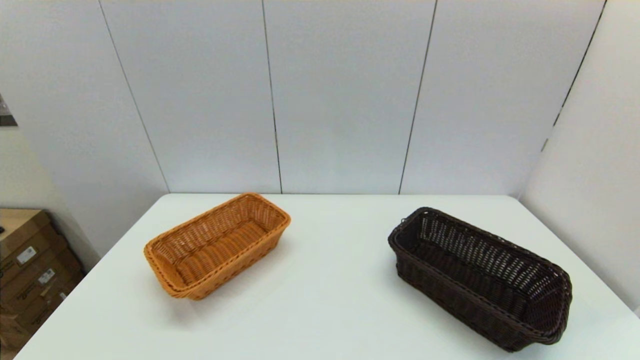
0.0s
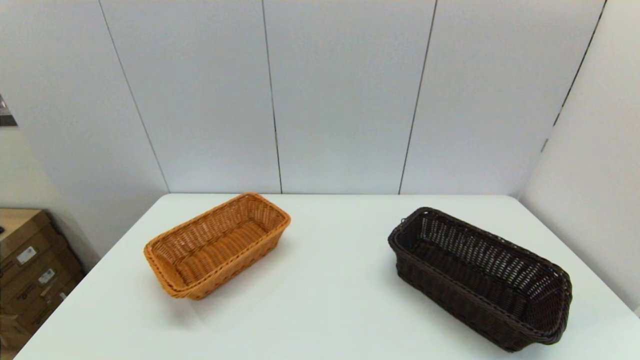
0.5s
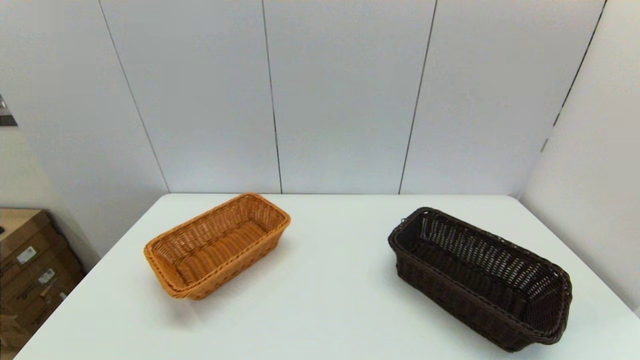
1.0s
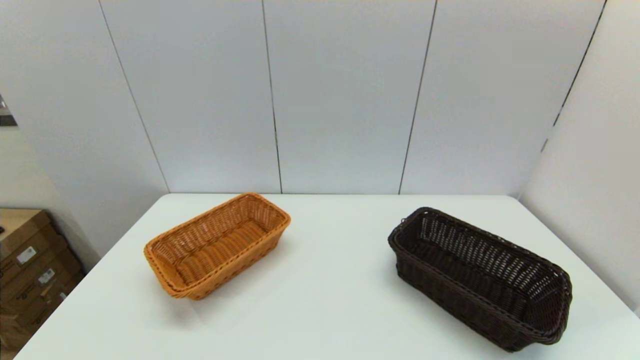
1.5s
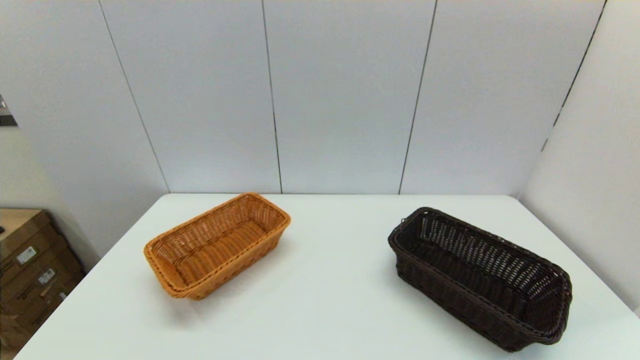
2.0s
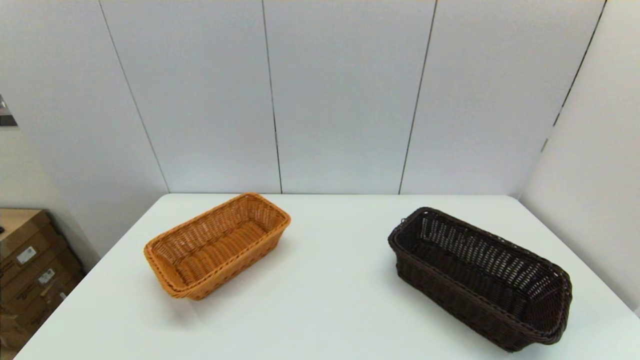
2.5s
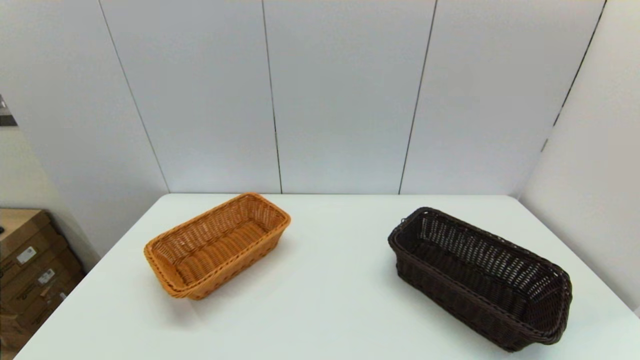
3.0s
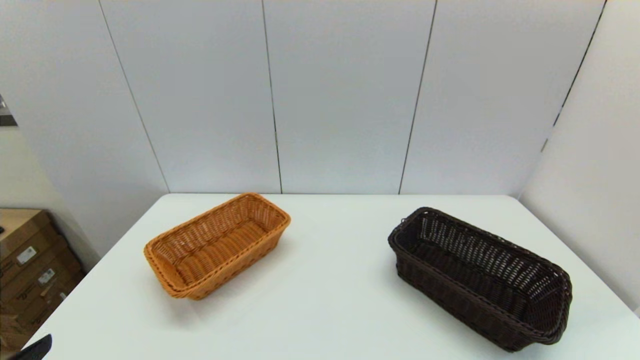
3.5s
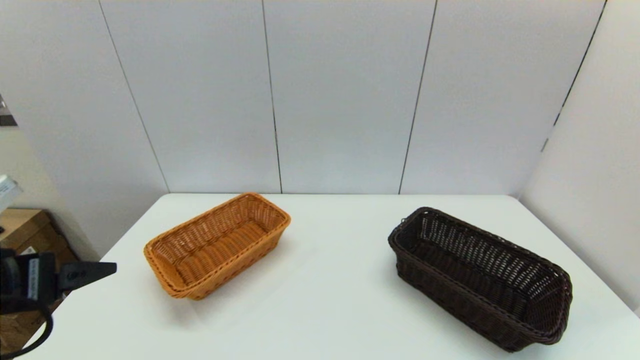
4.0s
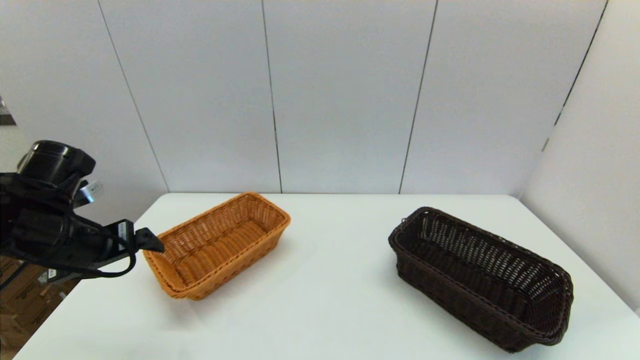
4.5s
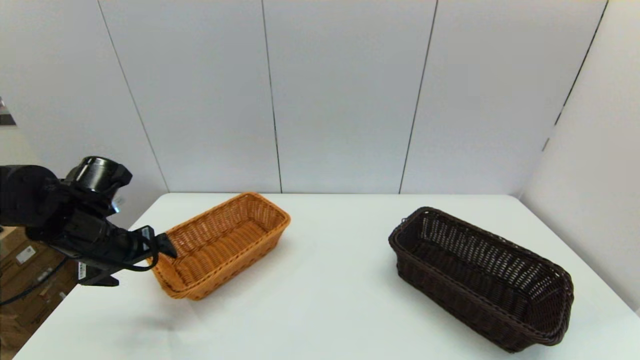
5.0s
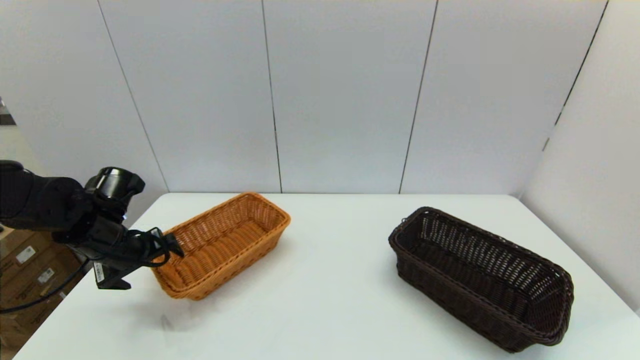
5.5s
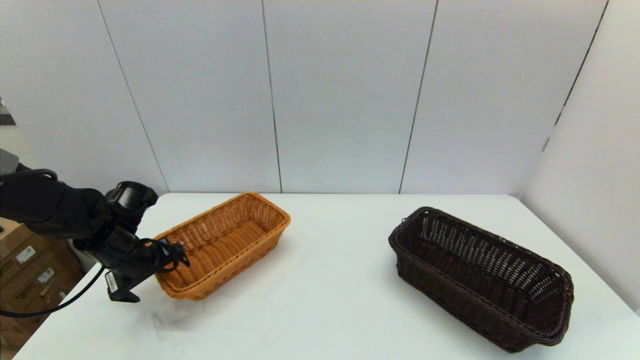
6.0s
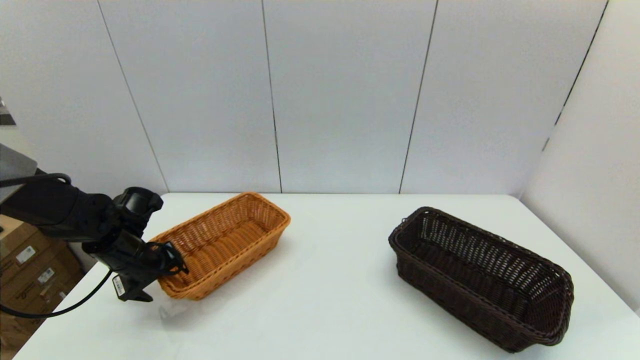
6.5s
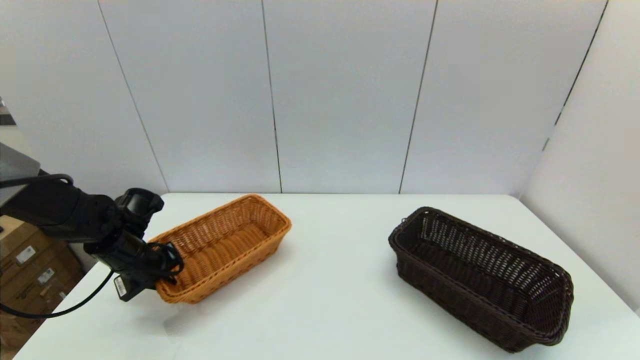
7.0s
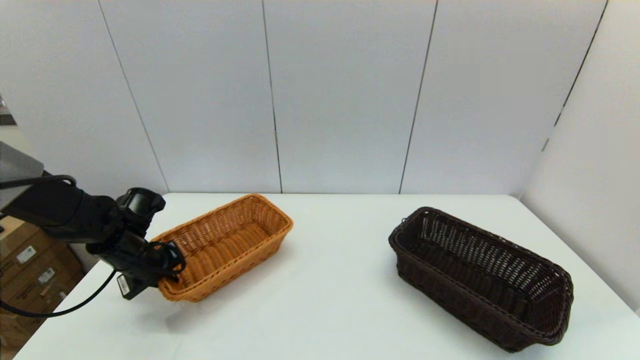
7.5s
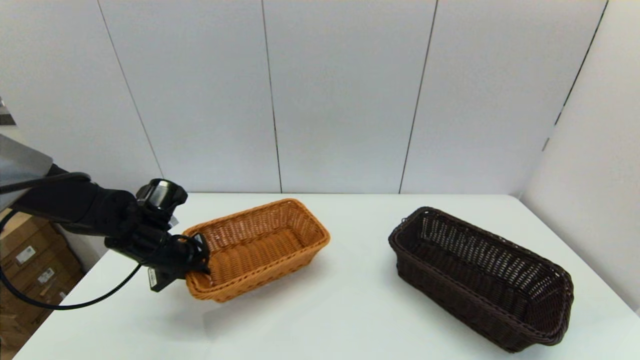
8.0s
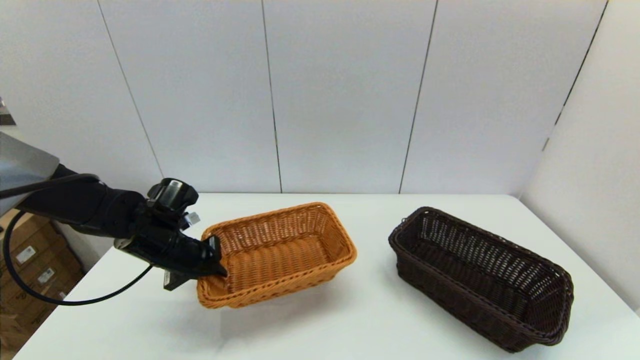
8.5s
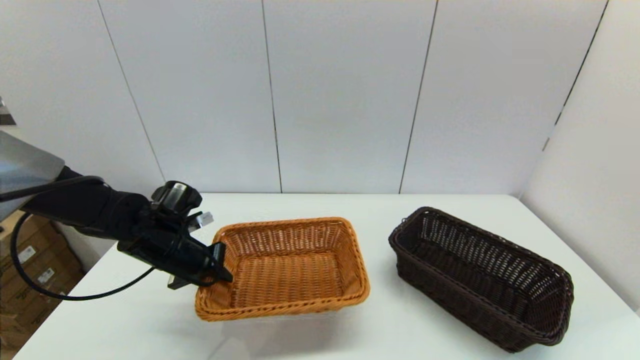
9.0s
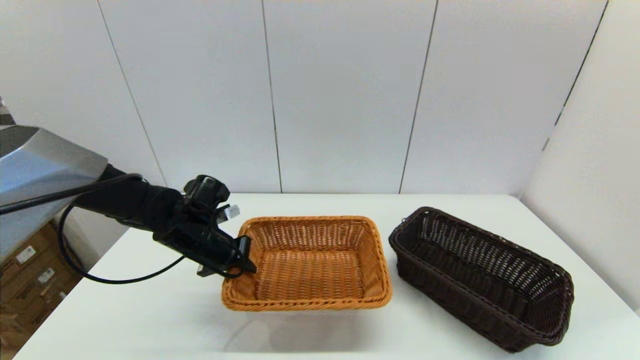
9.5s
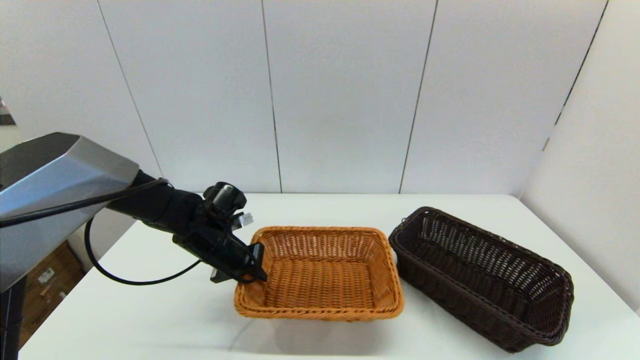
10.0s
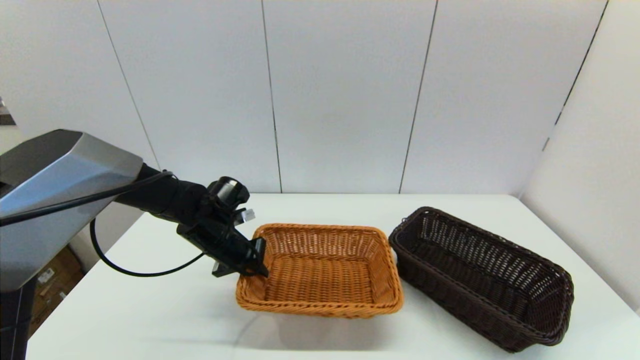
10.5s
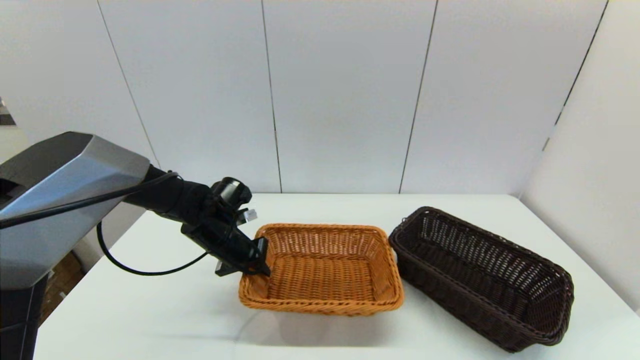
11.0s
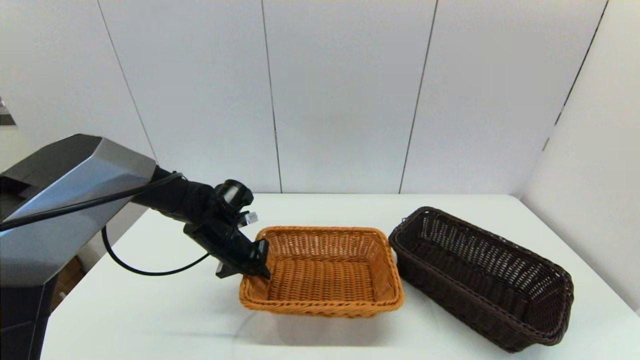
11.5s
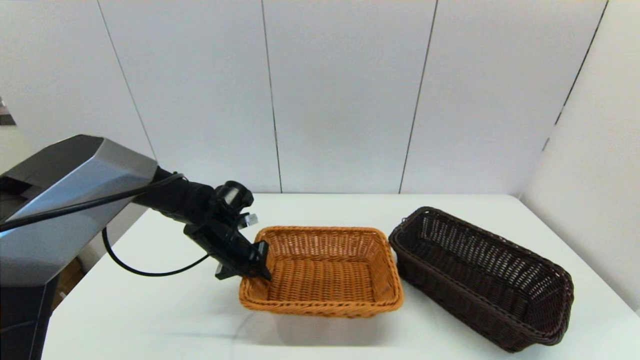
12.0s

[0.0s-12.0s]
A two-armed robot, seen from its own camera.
Task of the whole recording: stack a basket on top of another basket.
Step, 3.5s to 7.0s: Grasp the light basket with the left gripper.
0.0s to 2.0s: The two grippers keep their place.
2.0s to 4.0s: The left gripper travels forward and upward by some 20 cm.
4.0s to 6.0s: The left gripper shifts roughly 25 cm forward and downward.
6.0s to 8.0s: The left gripper travels to the right by some 5 cm, and closes.
8.0s to 10.0s: The left gripper moves to the right, roughly 10 cm.
10.0s to 12.0s: There are only small adjustments of the grippers.

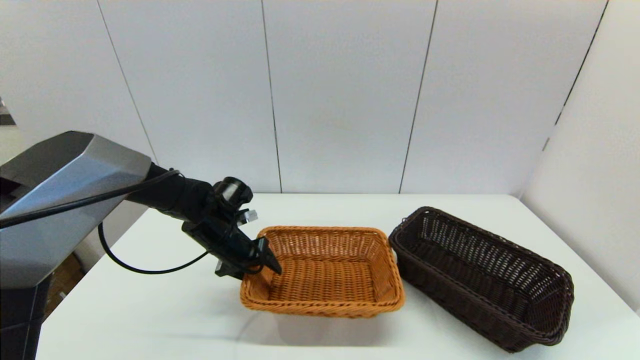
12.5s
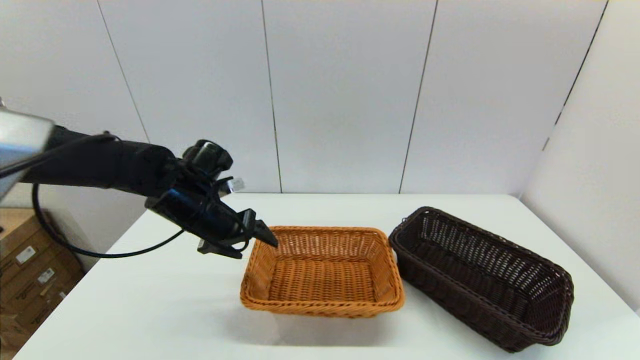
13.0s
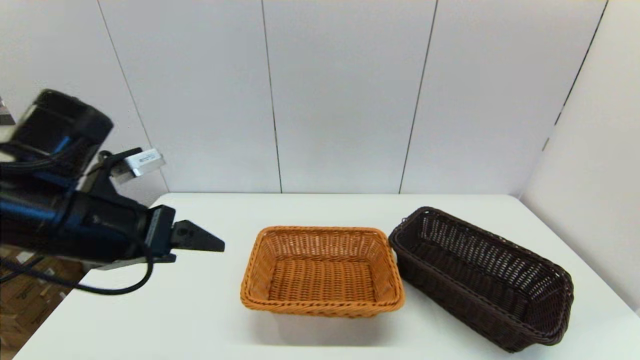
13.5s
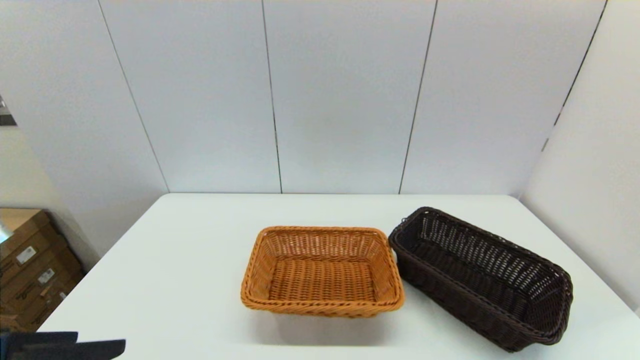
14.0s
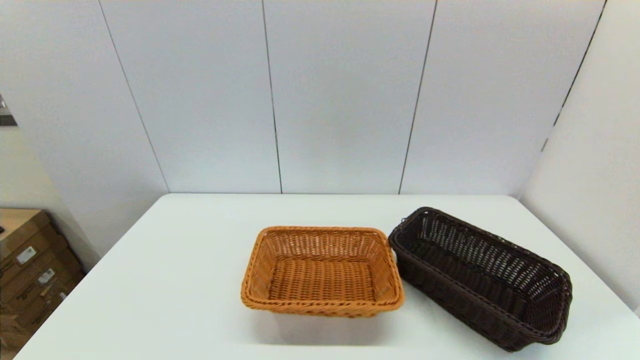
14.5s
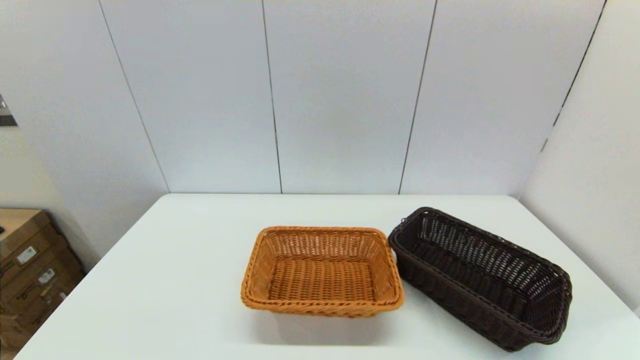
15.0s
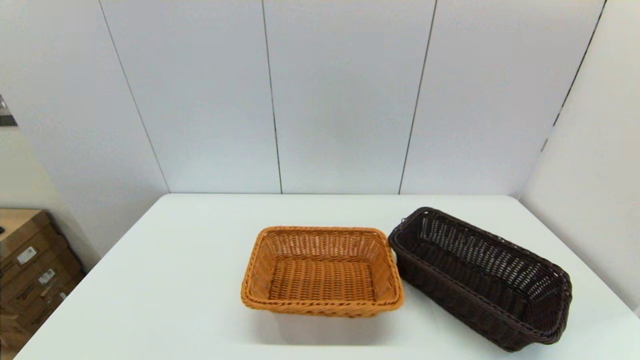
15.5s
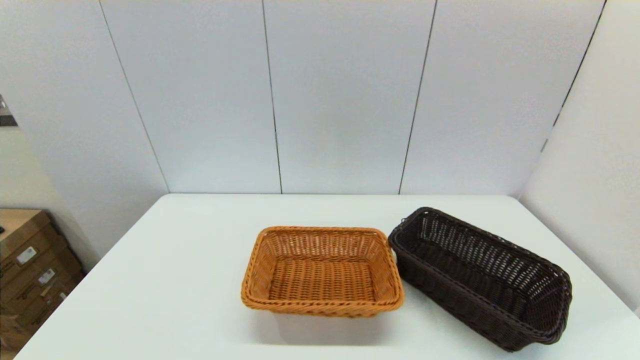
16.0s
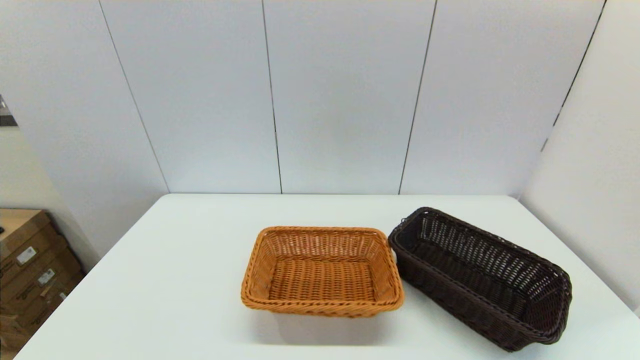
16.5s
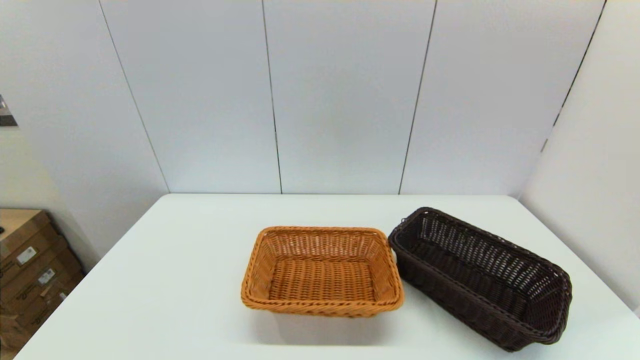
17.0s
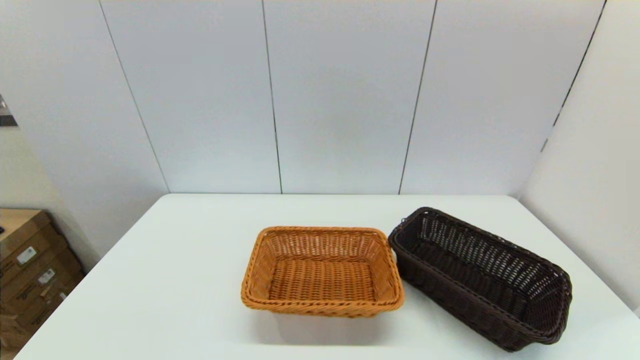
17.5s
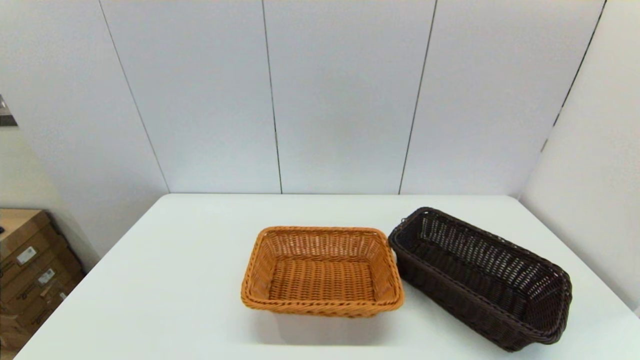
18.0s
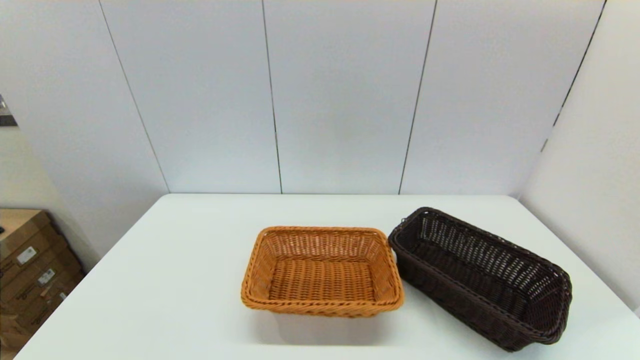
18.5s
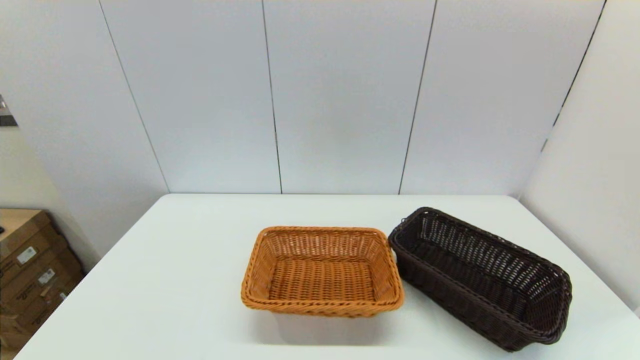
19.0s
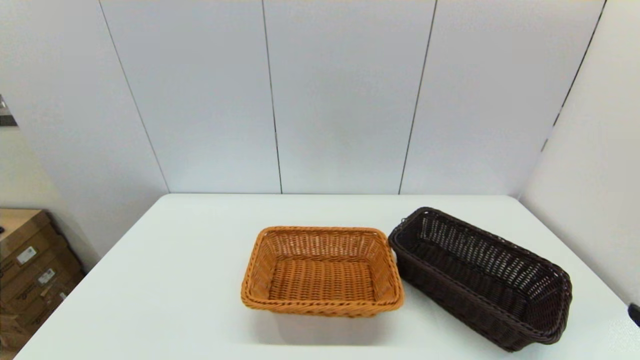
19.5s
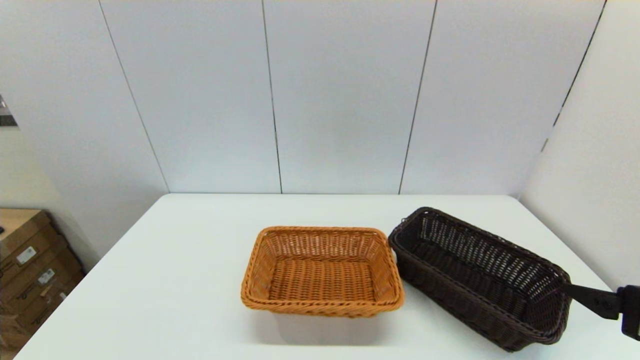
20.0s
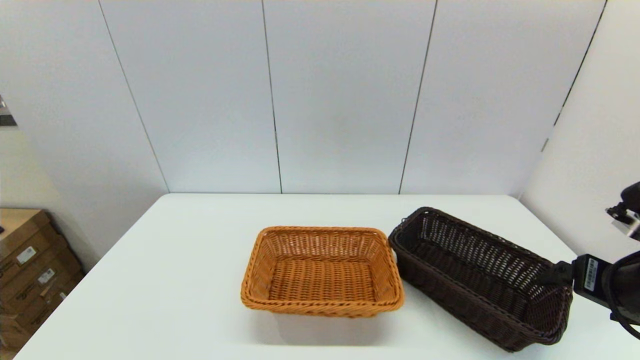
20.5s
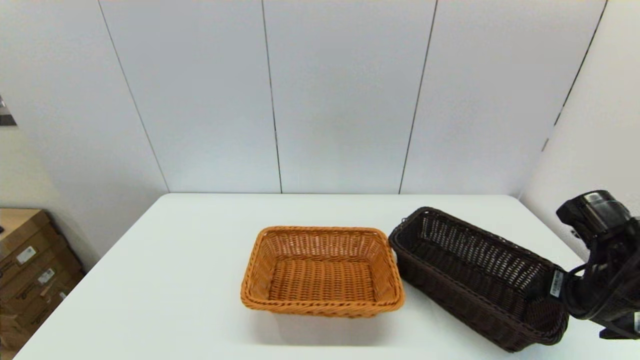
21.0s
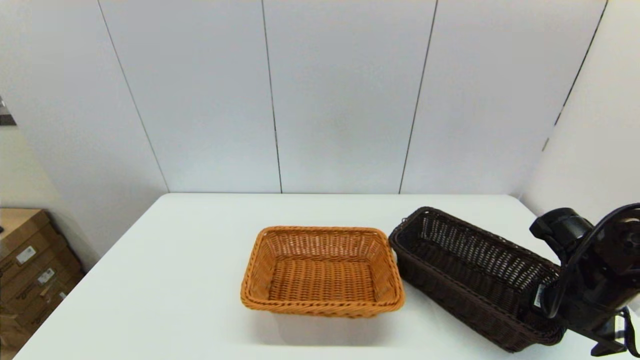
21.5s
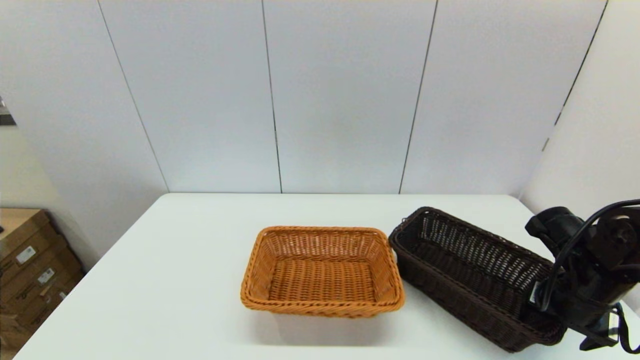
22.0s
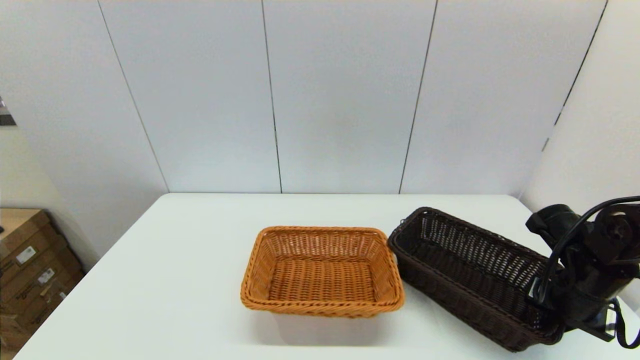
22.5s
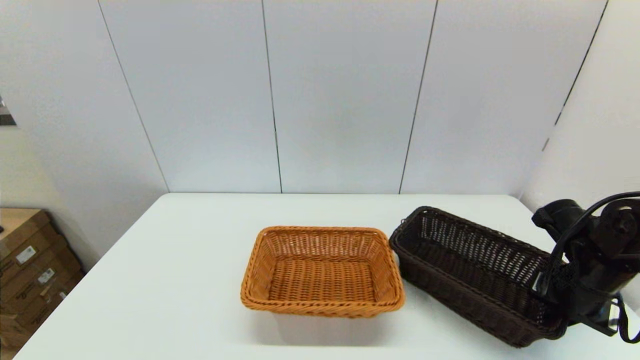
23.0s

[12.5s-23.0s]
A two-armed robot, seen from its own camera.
Task of the whole recording: stack a basket on top of another basket.
Step, 13.5s to 22.5s: Grasp the dark basket with the right gripper.
12.5s to 14.5s: The left gripper is displaced backward by about 35 cm.
16.5s to 19.0s: Both grippers stay put.
19.0s to 21.0s: The right gripper heads forward, covering some 25 cm.
21.0s to 23.0s: The right gripper moves about 5 cm, and closes its fingers.
